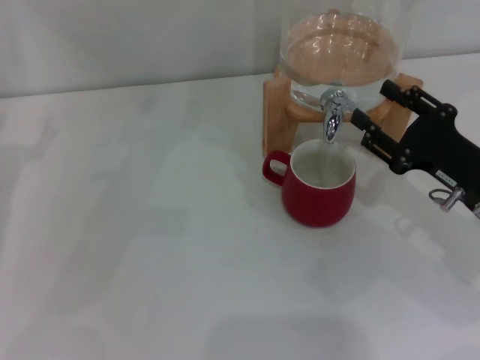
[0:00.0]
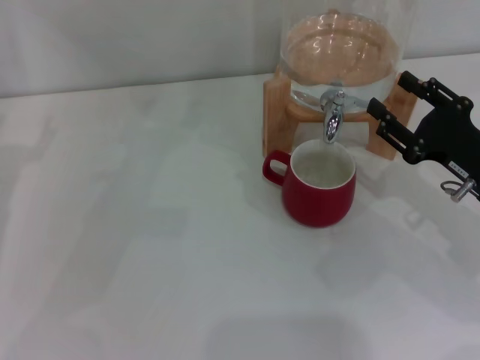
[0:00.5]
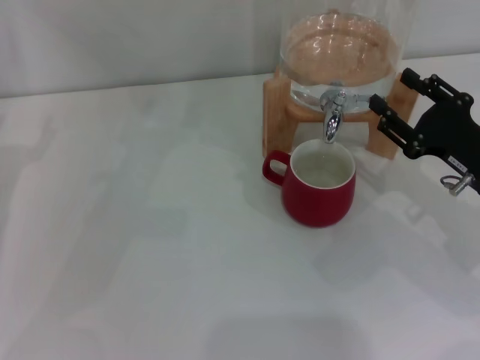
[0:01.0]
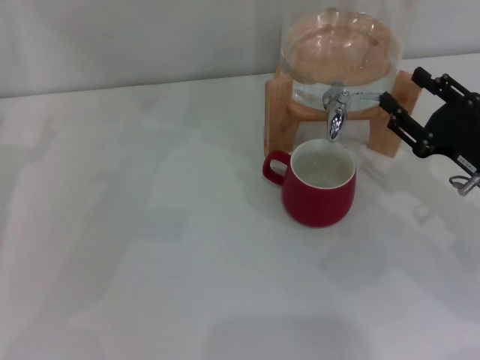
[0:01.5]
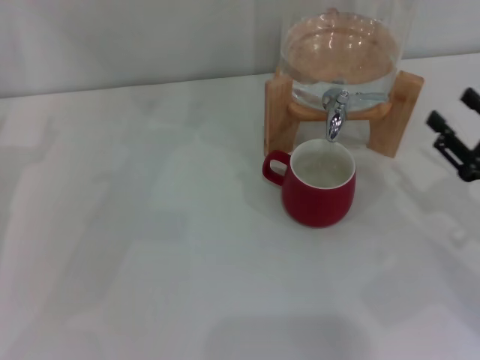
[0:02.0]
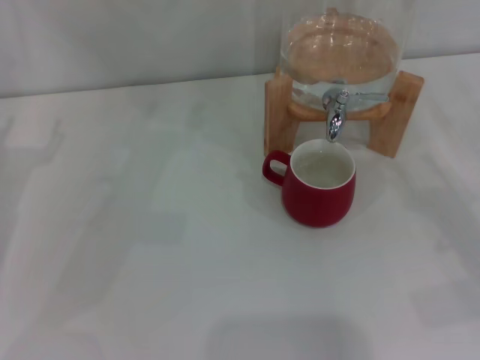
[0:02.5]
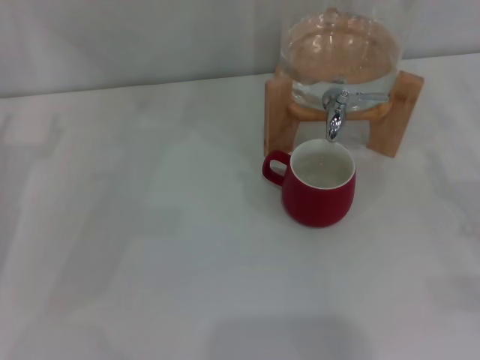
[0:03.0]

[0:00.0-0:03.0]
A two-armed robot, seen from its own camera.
Task of the whole recording: the left gripper pick up the red cup and place it horizontally under the faucet, the right gripper turn on the faucet to fill the cup, and then turn off the faucet.
0:00.0 to 0:01.5: The grippers stay close to where they were, moving slightly.
0:01.5 to 0:03.0: The right gripper shifts about 10 cm to the right and backward.
